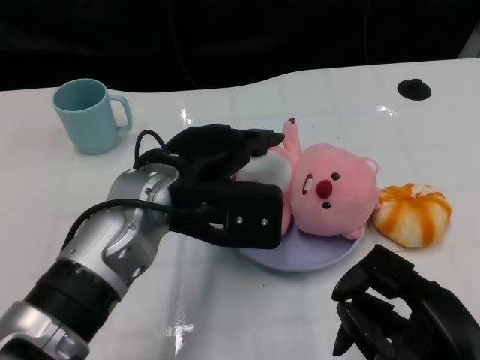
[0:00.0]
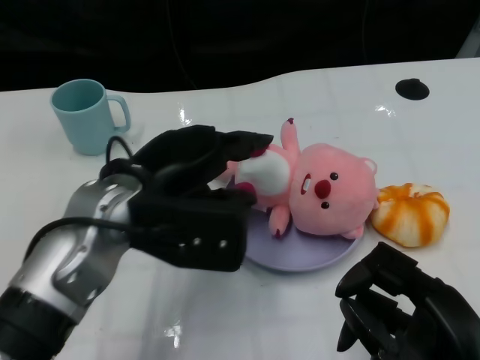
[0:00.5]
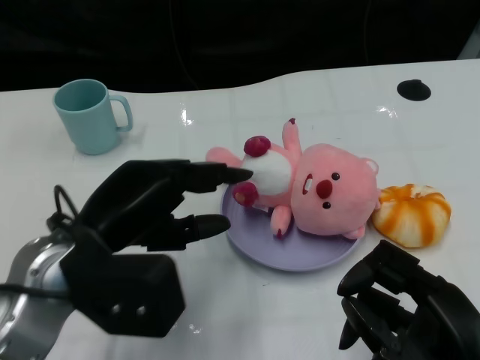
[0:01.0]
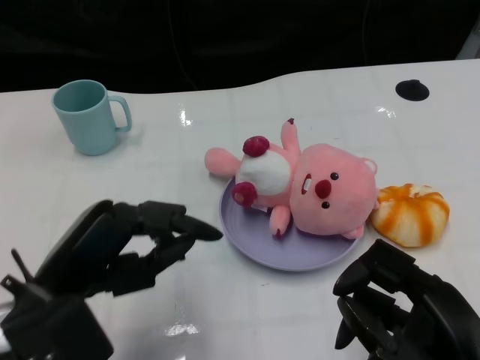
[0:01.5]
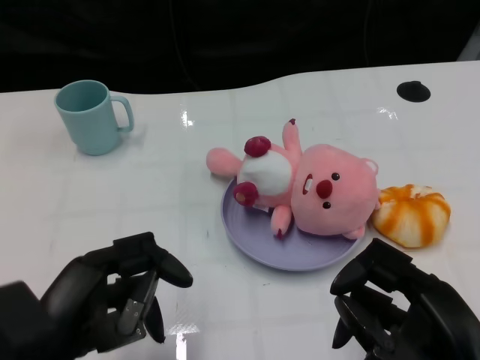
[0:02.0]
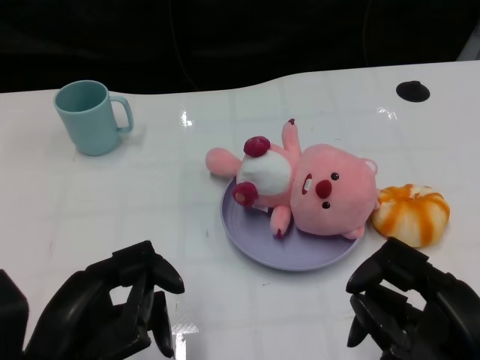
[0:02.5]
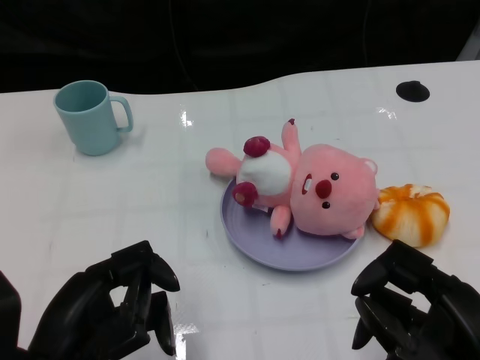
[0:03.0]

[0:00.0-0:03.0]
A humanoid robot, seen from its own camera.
Task of the whole recording: Pick up the doll on one side of the plate and place it into the plate.
0:00.0 to 0:01.5: The left hand goes roughly 15 cm to the left and backward.
0:01.5 to 0:03.0: The left hand heads backward, covering approximately 5 cm.
